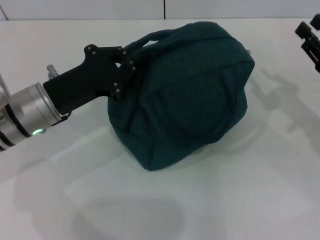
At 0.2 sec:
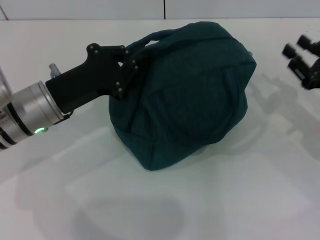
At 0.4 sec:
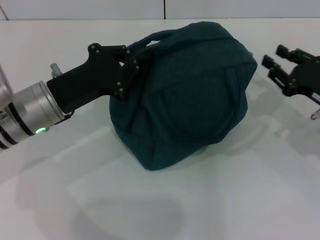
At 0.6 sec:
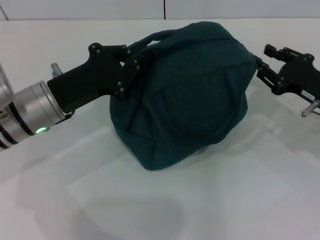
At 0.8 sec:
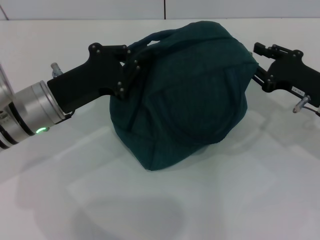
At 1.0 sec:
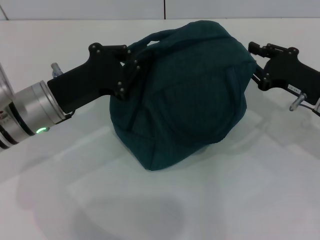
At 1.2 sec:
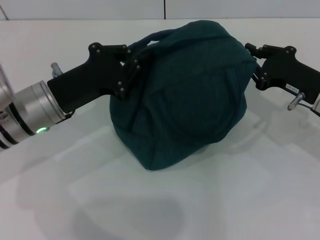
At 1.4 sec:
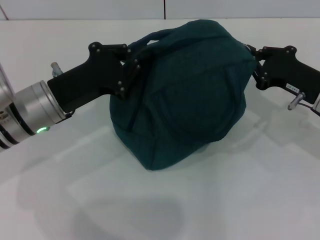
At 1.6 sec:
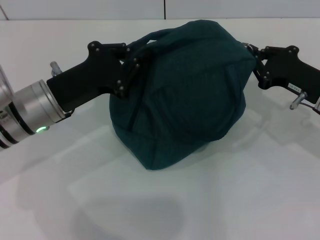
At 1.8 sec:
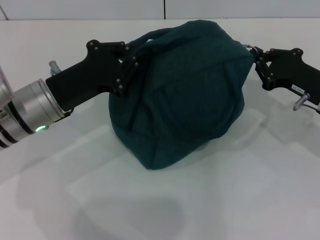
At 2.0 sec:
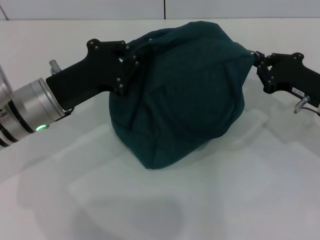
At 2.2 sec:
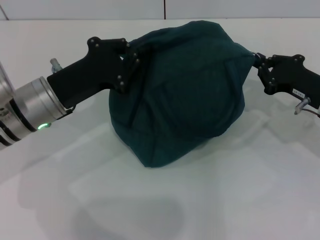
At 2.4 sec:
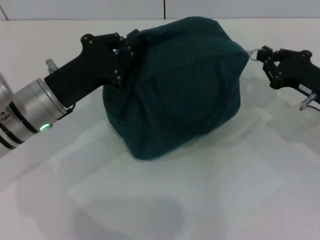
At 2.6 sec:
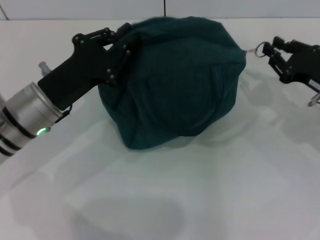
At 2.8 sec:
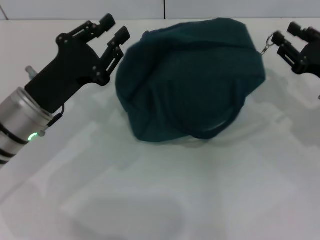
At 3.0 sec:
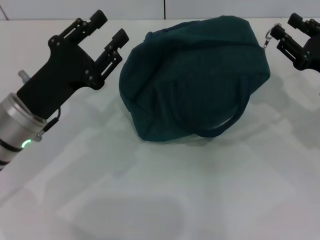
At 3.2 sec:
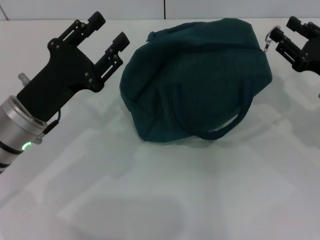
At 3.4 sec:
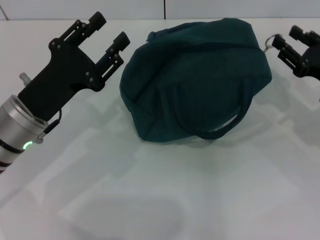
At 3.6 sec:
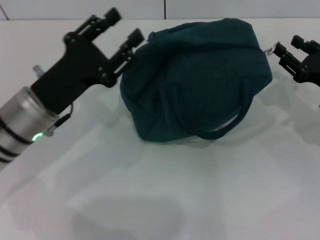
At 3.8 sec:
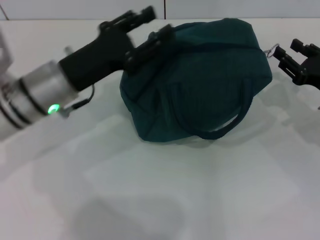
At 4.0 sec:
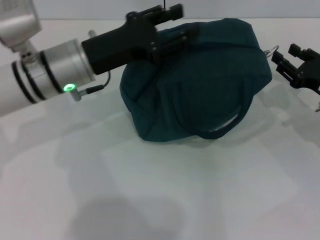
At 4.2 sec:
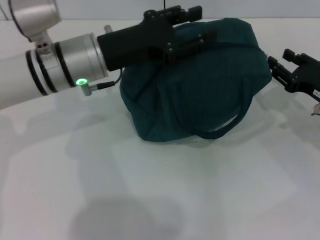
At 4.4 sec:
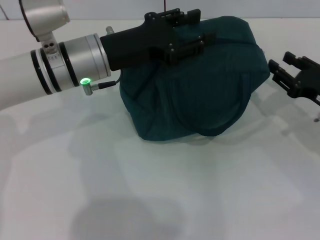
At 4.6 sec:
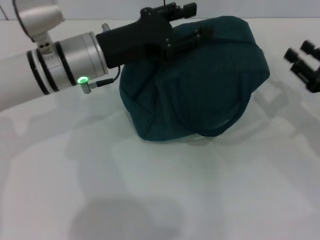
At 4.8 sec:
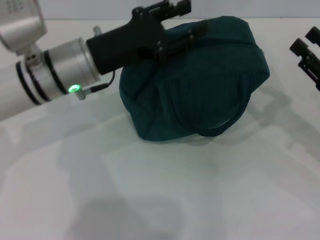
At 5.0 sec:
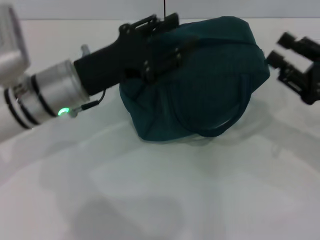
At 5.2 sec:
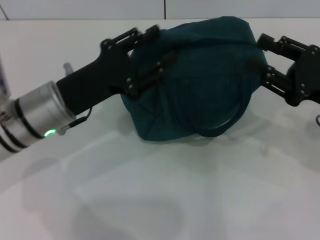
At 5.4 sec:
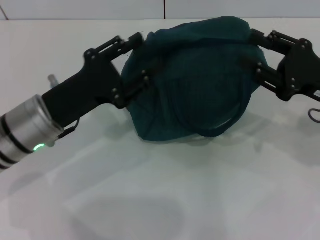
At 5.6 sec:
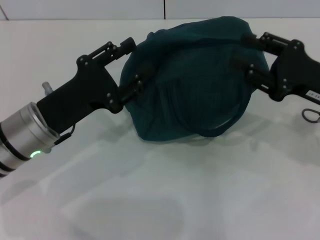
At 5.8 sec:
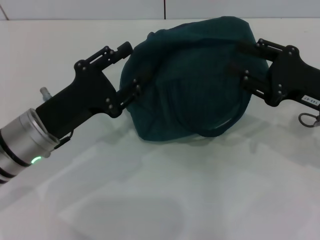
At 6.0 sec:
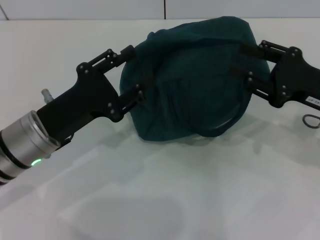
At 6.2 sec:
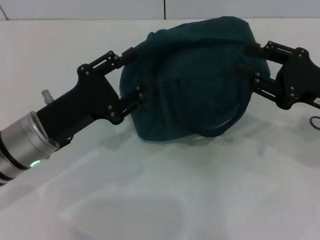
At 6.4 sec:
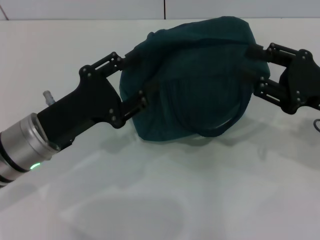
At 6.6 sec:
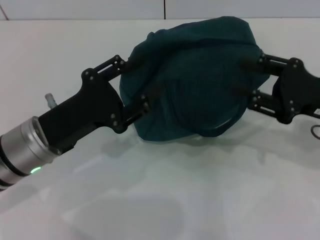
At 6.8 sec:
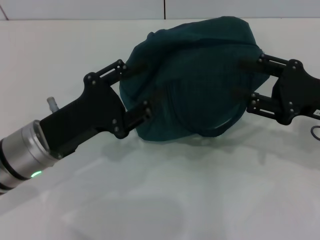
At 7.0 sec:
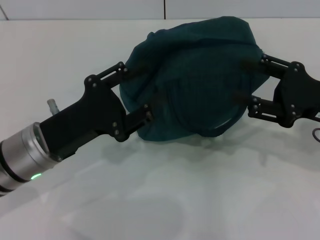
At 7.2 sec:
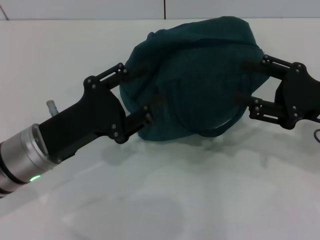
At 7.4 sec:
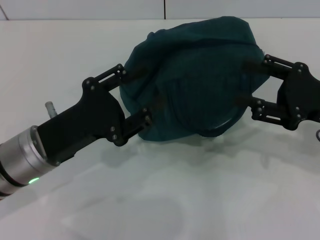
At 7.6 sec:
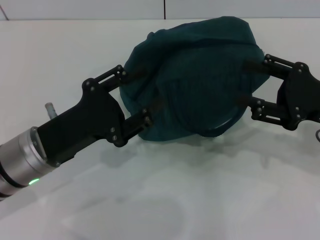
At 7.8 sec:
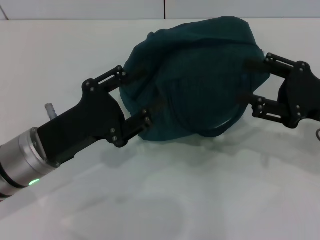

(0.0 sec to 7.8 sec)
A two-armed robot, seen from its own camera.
Step, 0.0 sec - 2.8 sec: Hold the lunch bag with your left hand.
0.0 sec - 1.6 sec: The right gripper heads to the left, covering some 5 cm, and closes.
1.6 sec - 3.2 sec: The right gripper opens; the left gripper opens.
3.2 sec - 4.6 sec: The left gripper goes roughly 10 cm forward, to the right and upward.
4.6 sec - 6.2 sec: The left gripper heads backward, to the left and downward, covering approximately 15 cm; the right gripper shifts some 5 cm upward.
6.2 sec - 7.8 sec: The grippers move only a little.
